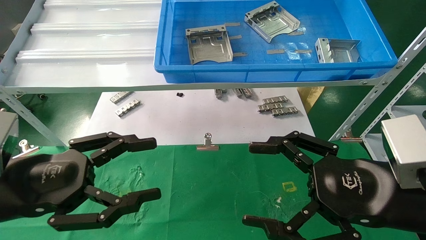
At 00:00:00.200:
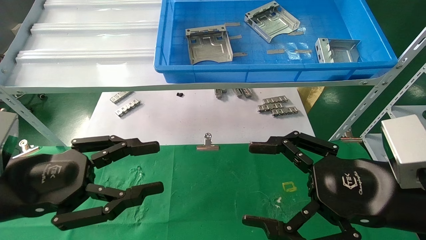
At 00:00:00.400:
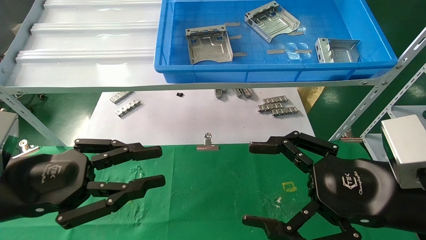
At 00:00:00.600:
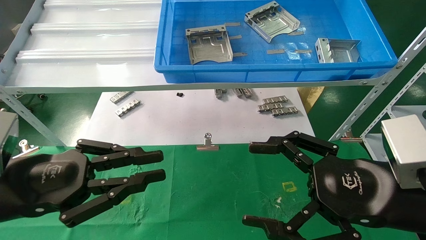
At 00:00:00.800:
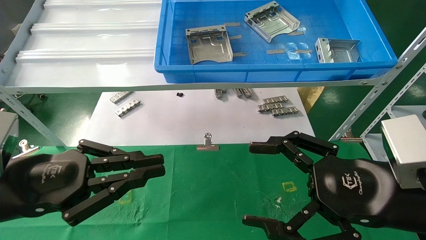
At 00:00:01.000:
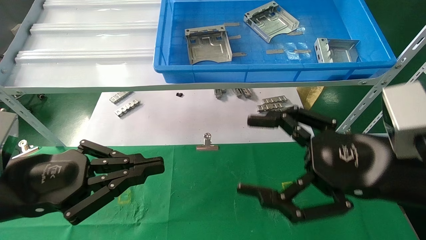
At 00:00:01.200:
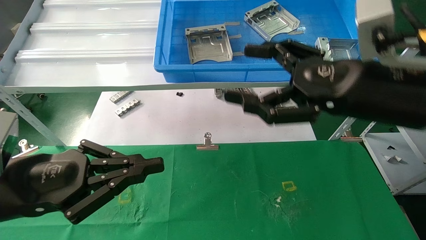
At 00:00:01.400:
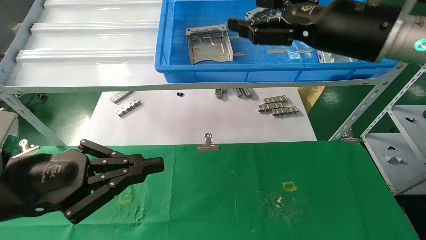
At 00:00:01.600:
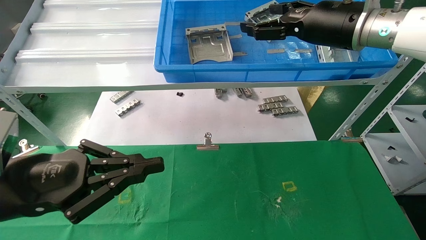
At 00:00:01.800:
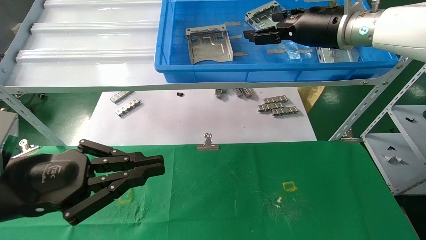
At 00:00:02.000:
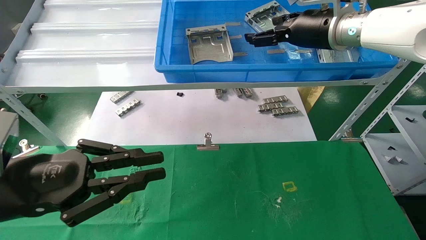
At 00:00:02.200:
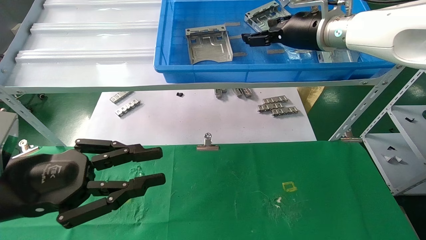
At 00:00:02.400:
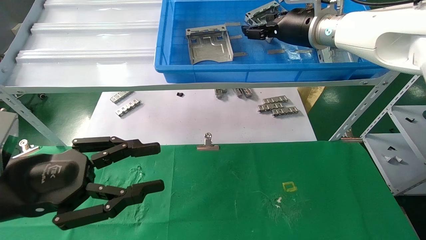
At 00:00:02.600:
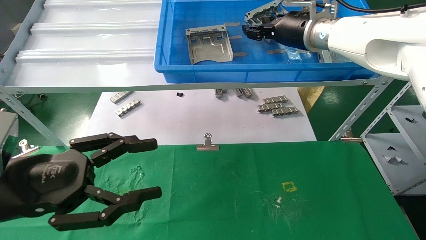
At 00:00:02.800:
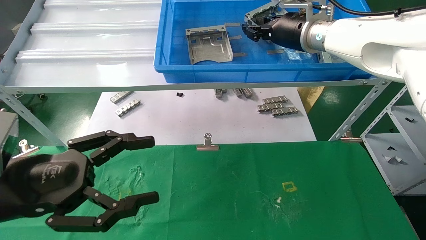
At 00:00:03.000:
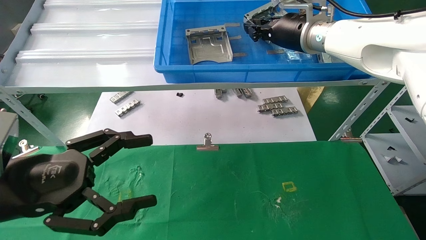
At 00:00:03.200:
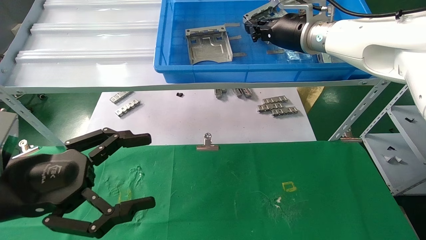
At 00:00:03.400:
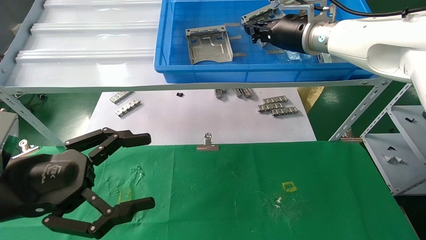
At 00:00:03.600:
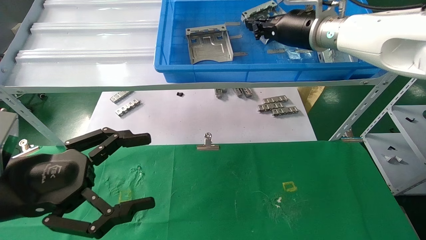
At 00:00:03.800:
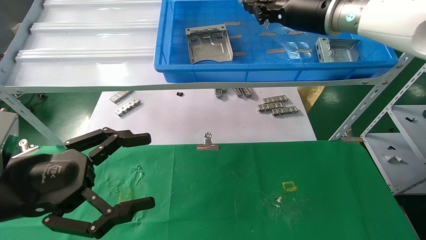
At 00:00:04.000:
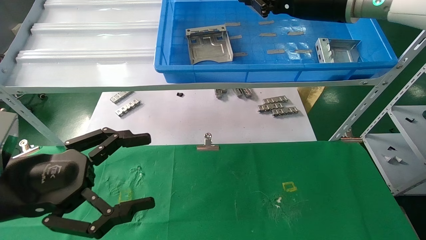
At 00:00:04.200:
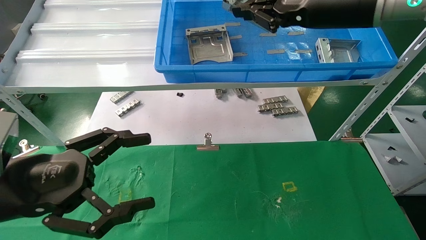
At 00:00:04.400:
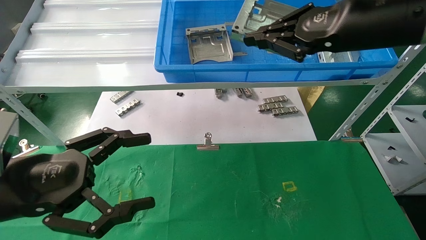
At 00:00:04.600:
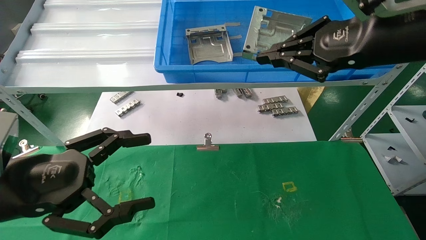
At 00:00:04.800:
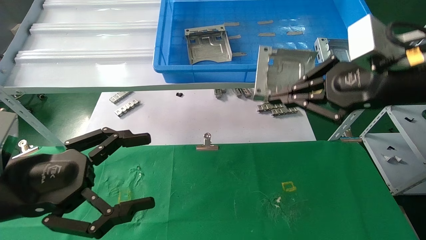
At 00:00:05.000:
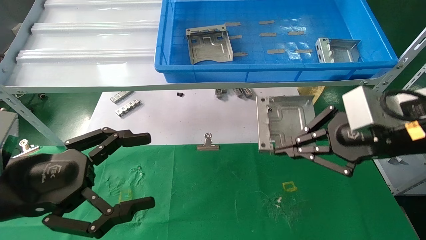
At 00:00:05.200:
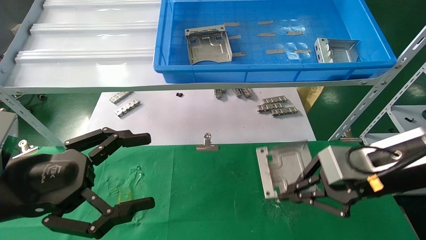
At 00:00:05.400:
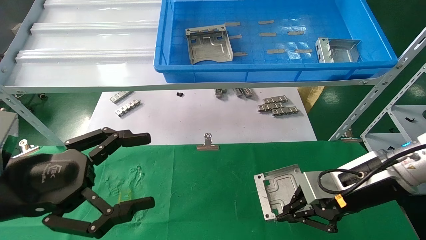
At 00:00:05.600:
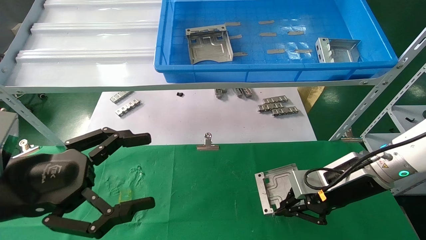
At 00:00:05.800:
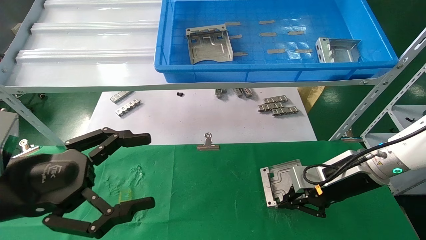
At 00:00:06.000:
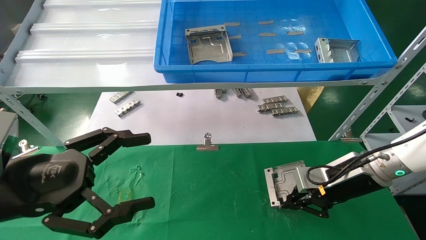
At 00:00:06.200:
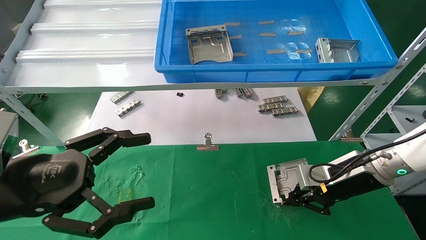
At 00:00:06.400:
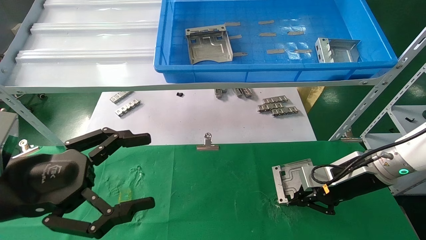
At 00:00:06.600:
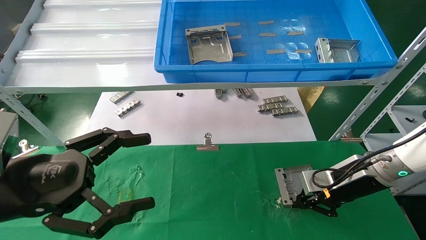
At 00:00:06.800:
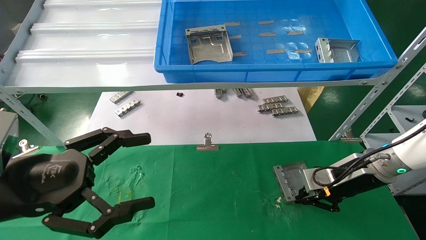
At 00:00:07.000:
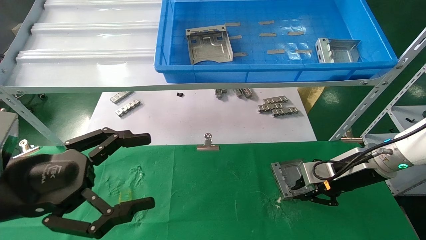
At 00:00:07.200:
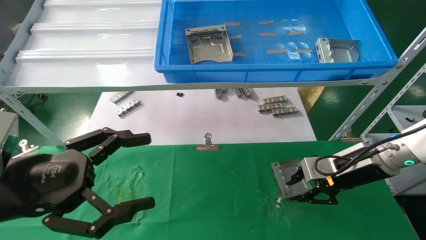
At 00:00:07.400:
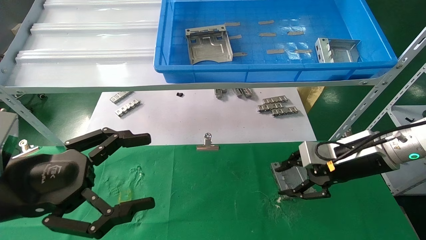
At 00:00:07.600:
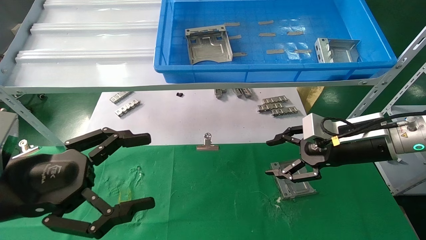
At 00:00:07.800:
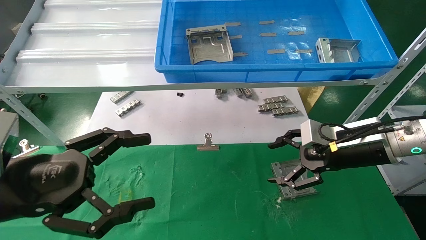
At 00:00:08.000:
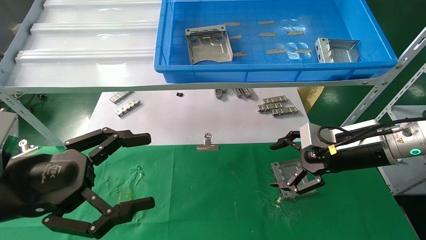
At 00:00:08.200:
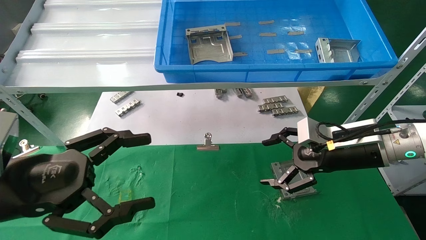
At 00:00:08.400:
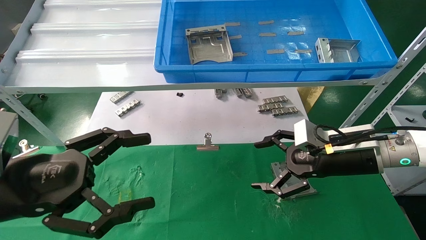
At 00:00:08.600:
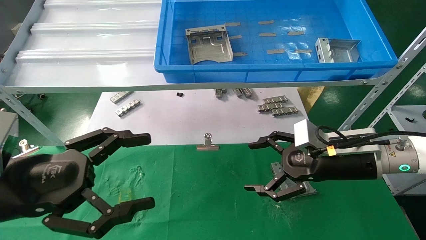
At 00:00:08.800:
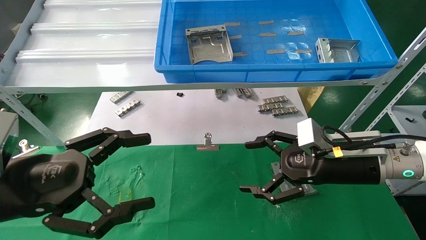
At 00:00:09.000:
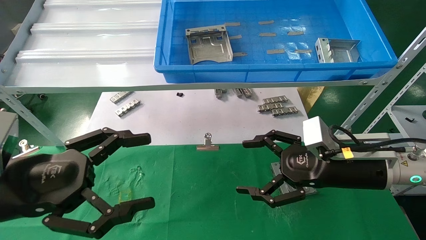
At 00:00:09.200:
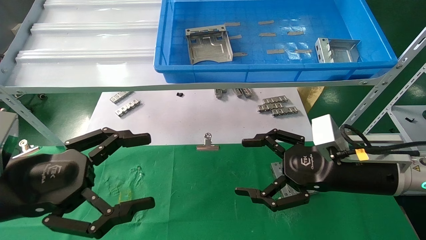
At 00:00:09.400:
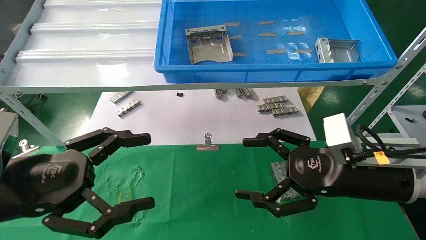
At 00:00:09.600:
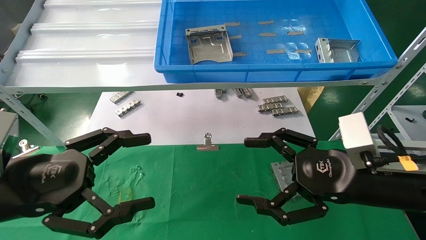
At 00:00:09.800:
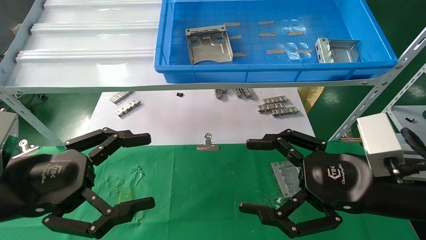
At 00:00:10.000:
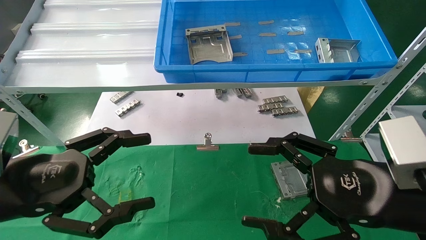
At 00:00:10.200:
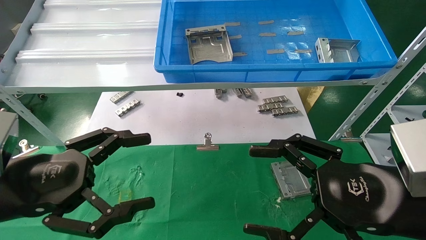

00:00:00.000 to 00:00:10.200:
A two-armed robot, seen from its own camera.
Task of the whole recording: use the mechanical arm to pick up the parts and place them on the table.
Step, 00:00:01.600 to 00:00:04.600: Pick up the hard drive bracket from the feeding area.
Step, 00:00:04.800 to 00:00:08.000: Place the hard drive bracket into the box.
00:00:00.000 to 00:00:01.400: The left gripper closes, while the right gripper goes approximately 20 cm upward and forward.
00:00:01.400 to 00:00:03.000: The left gripper opens its fingers, while the right gripper heads forward, covering some 15 cm, and closes up.
00:00:03.000 to 00:00:04.400: The right gripper shifts roughly 15 cm backward and to the right.
00:00:04.400 to 00:00:05.800: The right gripper goes about 25 cm downward.
00:00:05.800 to 00:00:07.200: The grippers stay close to where they were, moving slightly.
00:00:07.200 to 00:00:08.800: The right gripper moves about 5 cm, and opens its fingers.
00:00:08.800 to 00:00:10.200: The right gripper goes approximately 15 cm backward.
